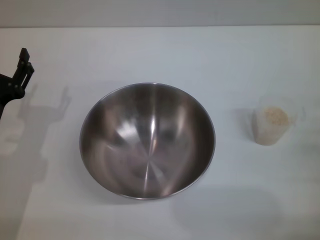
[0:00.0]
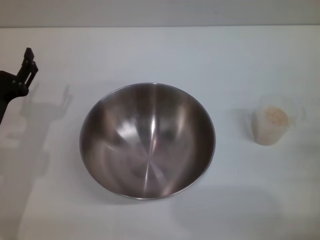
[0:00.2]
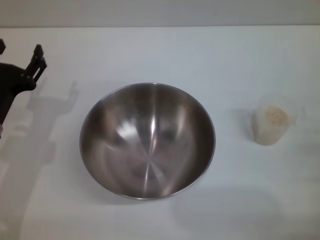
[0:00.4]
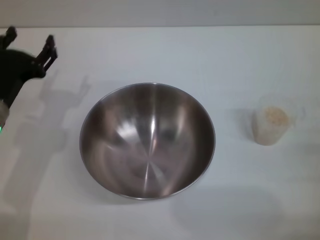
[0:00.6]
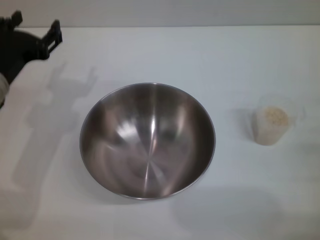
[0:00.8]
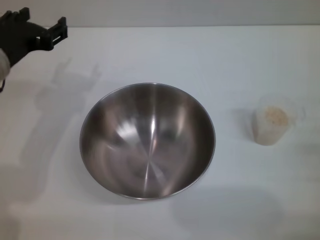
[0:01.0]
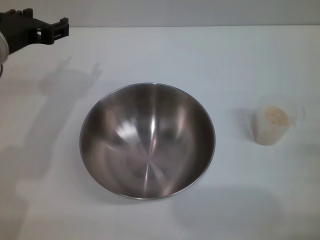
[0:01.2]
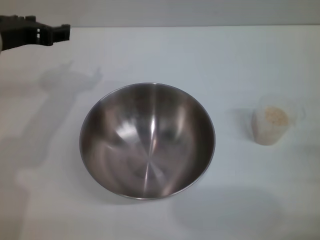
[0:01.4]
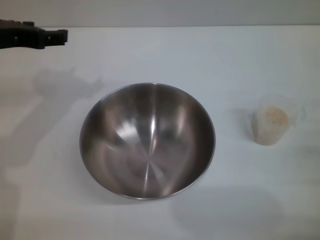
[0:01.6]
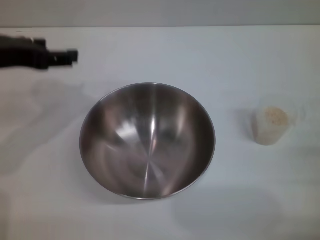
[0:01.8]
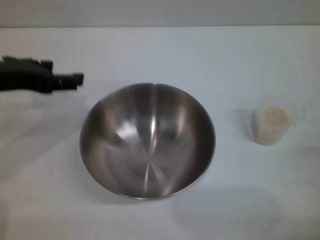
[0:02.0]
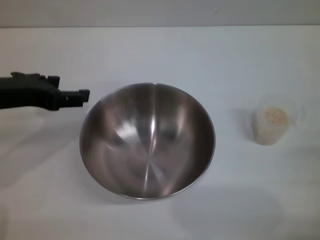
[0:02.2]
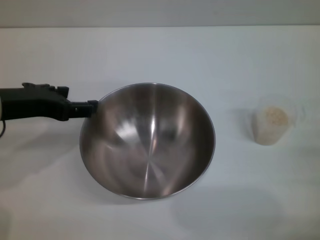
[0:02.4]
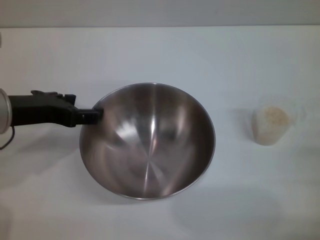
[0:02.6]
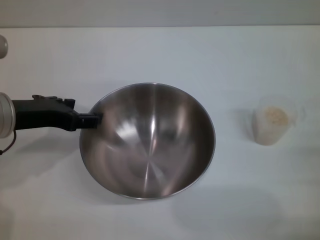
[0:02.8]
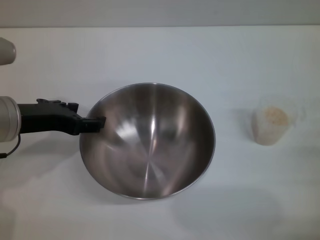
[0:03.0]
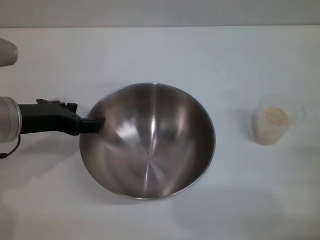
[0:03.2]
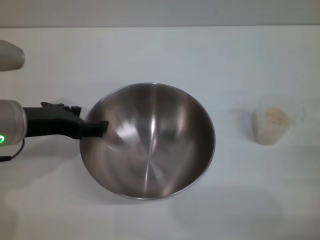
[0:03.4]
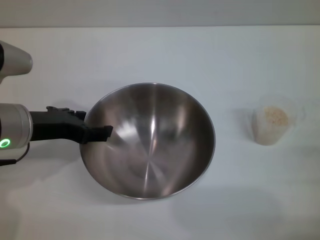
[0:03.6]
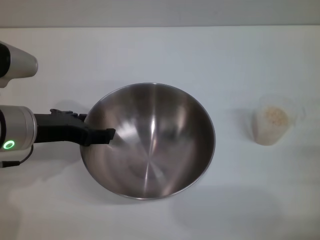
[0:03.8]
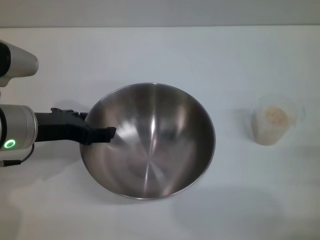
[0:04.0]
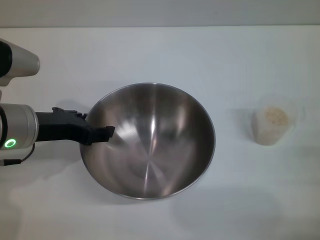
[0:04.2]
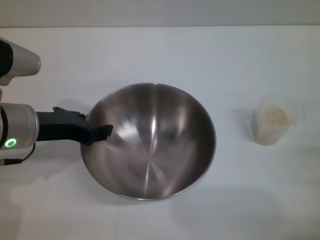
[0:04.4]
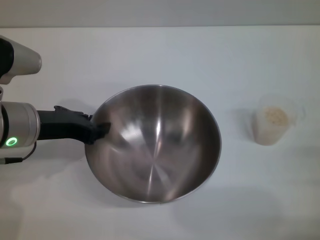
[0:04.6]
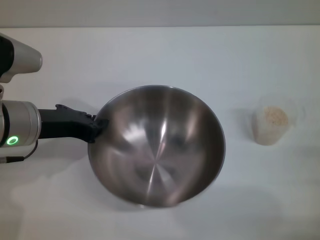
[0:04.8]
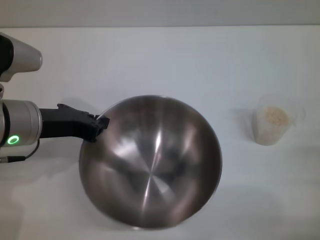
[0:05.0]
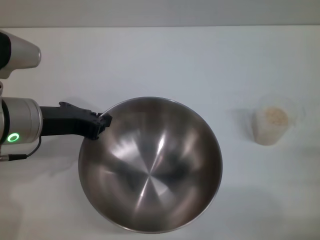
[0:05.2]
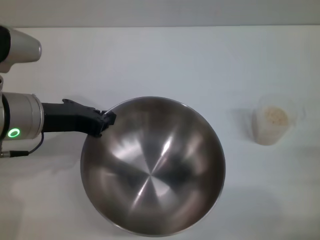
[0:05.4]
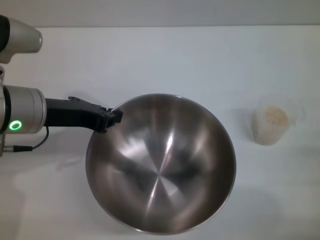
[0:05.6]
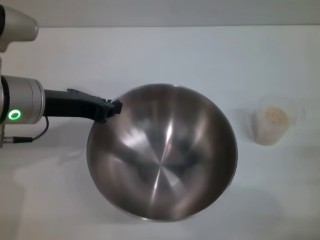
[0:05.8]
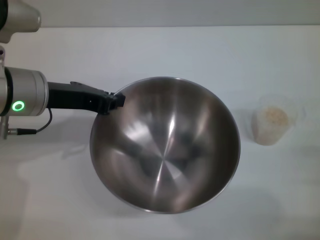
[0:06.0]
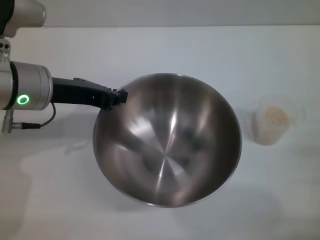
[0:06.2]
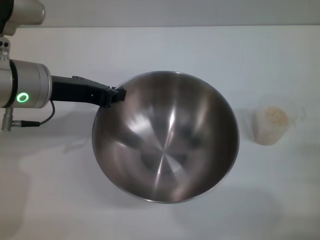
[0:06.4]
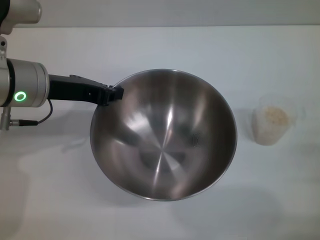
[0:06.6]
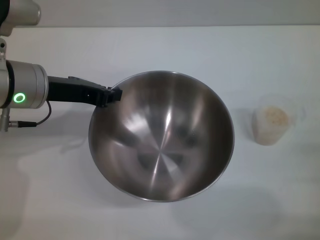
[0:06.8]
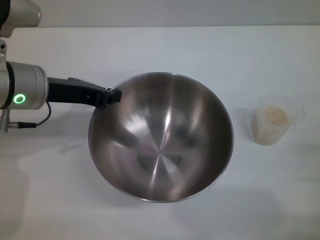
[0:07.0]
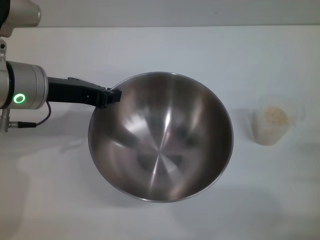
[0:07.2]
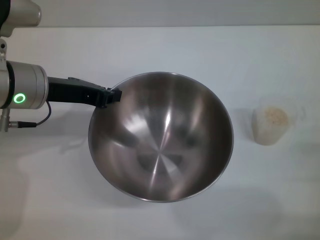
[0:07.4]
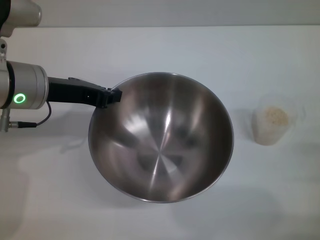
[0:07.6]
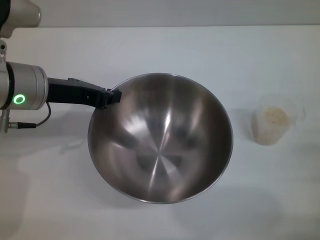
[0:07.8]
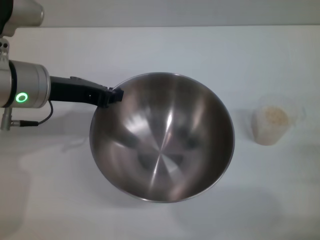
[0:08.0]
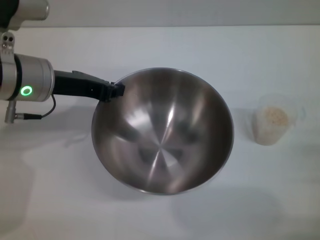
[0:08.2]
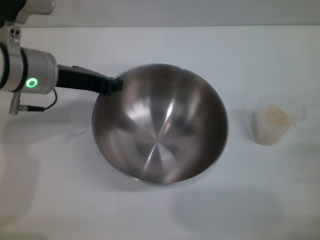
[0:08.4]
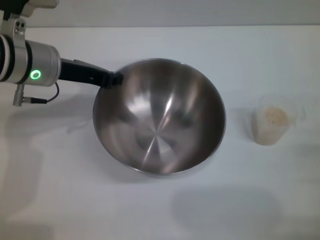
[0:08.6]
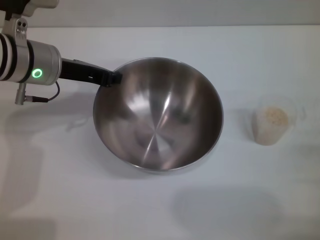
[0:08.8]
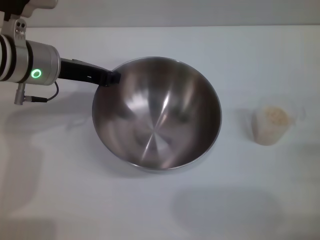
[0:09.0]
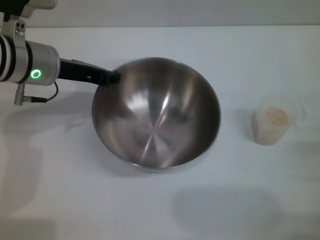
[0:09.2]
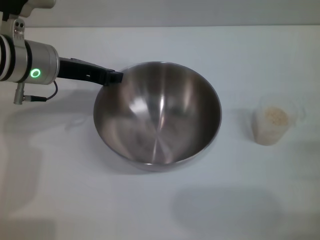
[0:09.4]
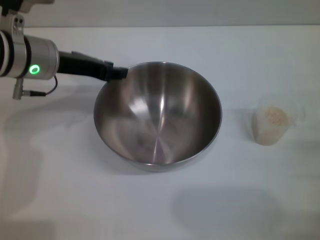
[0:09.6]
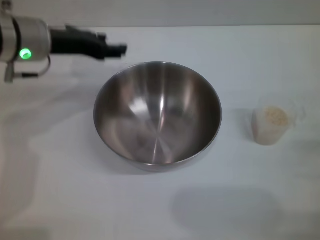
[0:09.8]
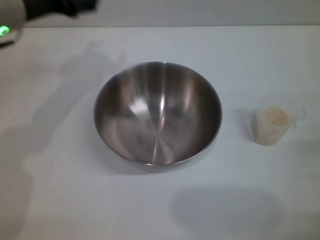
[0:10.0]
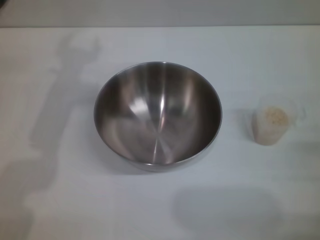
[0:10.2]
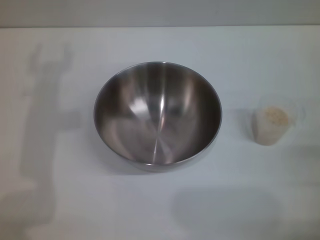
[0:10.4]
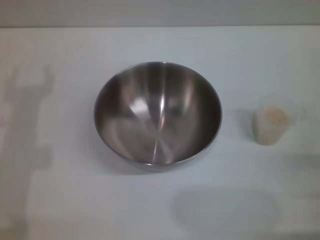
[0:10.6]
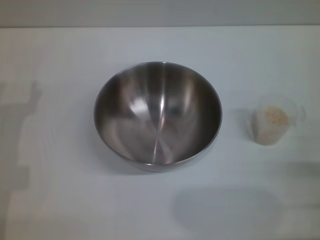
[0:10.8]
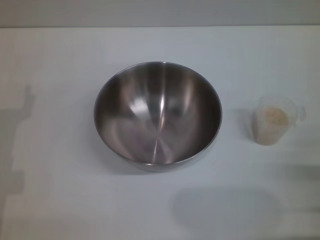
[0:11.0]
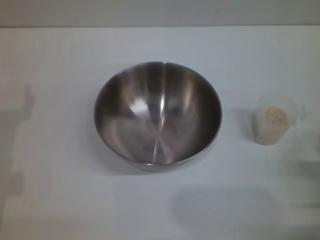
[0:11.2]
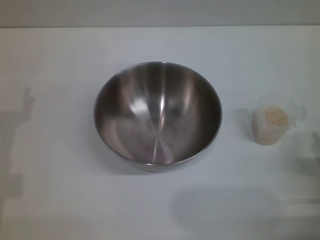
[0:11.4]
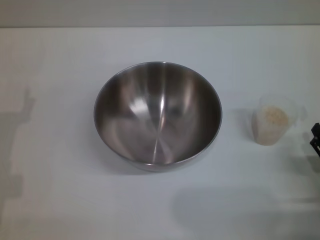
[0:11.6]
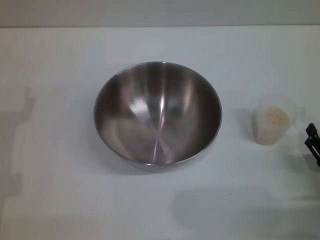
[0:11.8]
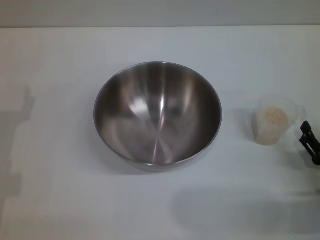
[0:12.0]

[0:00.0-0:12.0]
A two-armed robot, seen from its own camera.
Task of the whole recording: Place the bowl in the middle of the table with one hand and pour the rice from the grain cup into it with the other hand.
Step, 0:00.0 to 0:05.8: Pick up the bowl with the left gripper.
Step, 0:06.0 to 0:09.6: Place the bowl in the center of view with the left gripper.
0:00.0 to 0:01.6: The left gripper shifts some 20 cm upward and forward.
0:01.6 to 0:03.0: The left gripper shifts about 5 cm downward.
0:03.0 to 0:04.4: The grippers stay close to where they were, moving slightly.
0:04.4 to 0:06.0: The left gripper closes up.
0:06.0 to 0:07.6: Both grippers stay about where they are.
0:07.6 to 0:09.0: The left gripper travels forward by about 5 cm.
0:09.0 to 0:10.4: The left gripper moves backward, some 5 cm, and opens up.
0:10.4 to 0:12.0: The left gripper travels downward, backward and to the left by approximately 15 cm. Meanwhile the right gripper ends up roughly 5 cm from where it was.

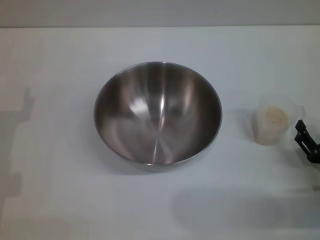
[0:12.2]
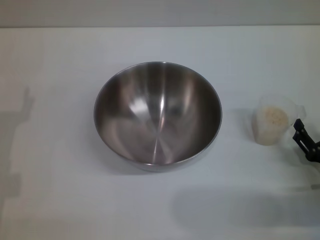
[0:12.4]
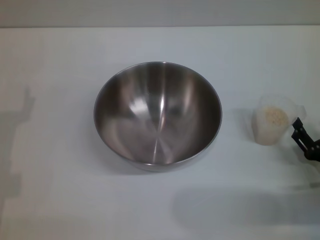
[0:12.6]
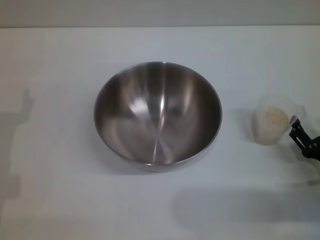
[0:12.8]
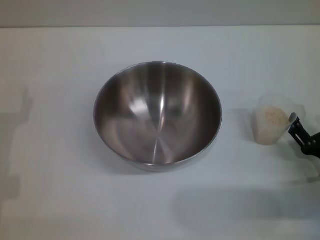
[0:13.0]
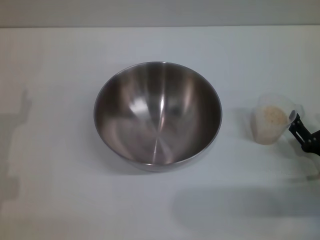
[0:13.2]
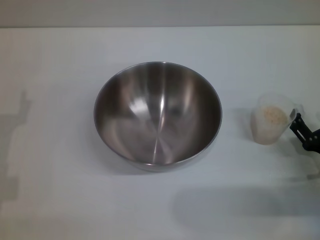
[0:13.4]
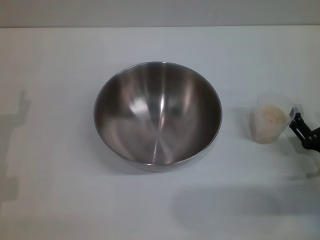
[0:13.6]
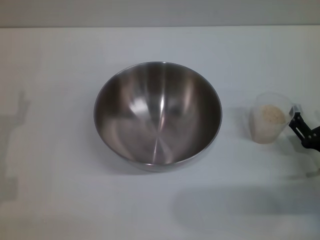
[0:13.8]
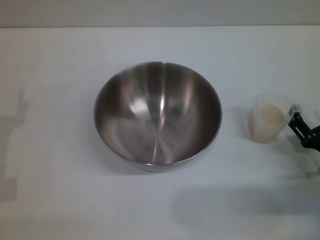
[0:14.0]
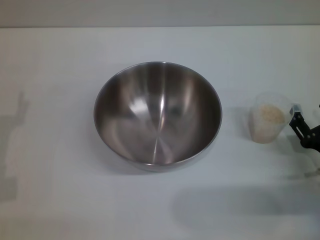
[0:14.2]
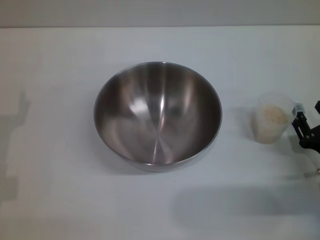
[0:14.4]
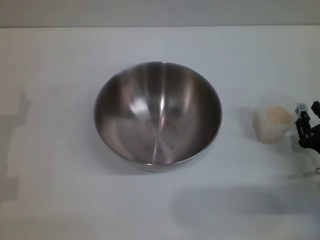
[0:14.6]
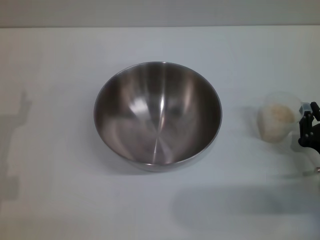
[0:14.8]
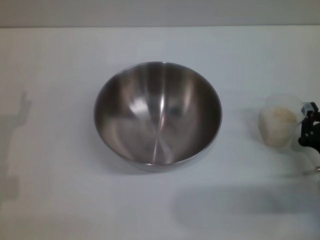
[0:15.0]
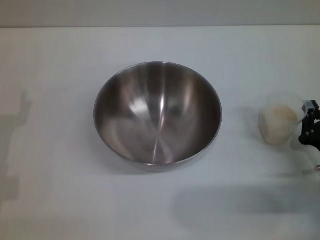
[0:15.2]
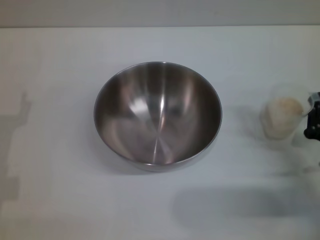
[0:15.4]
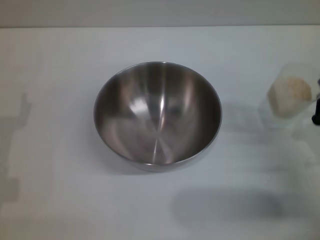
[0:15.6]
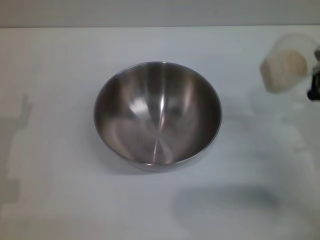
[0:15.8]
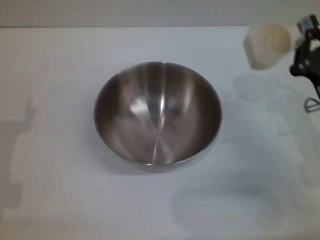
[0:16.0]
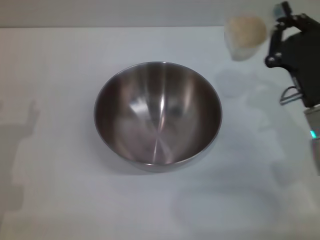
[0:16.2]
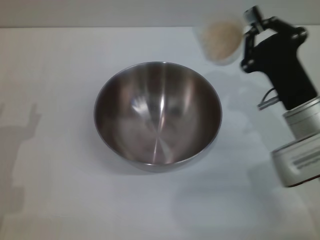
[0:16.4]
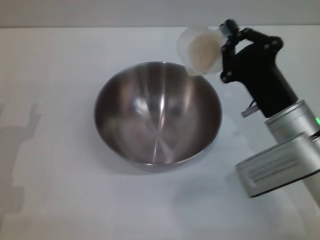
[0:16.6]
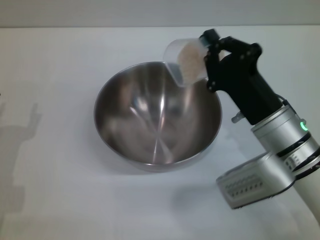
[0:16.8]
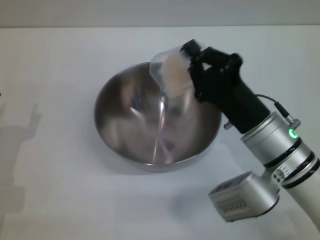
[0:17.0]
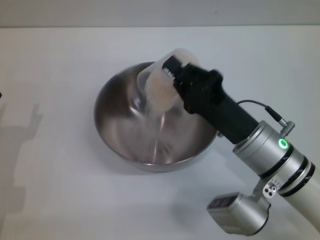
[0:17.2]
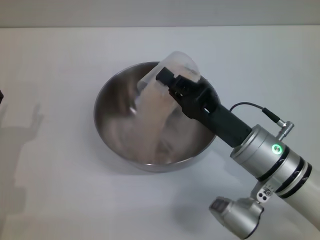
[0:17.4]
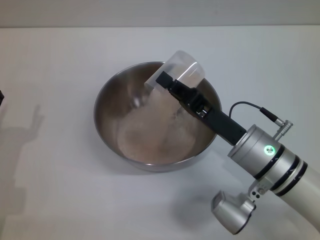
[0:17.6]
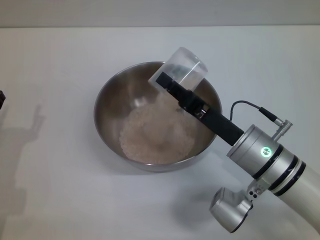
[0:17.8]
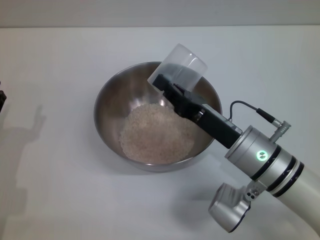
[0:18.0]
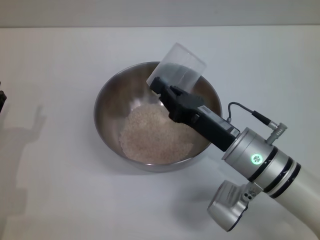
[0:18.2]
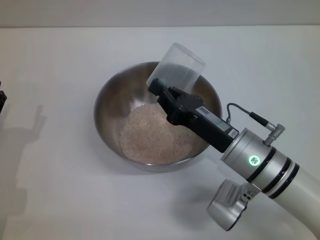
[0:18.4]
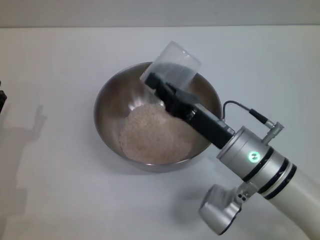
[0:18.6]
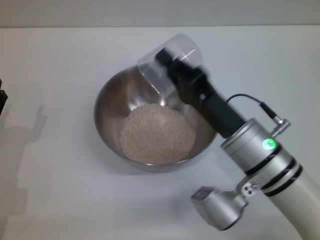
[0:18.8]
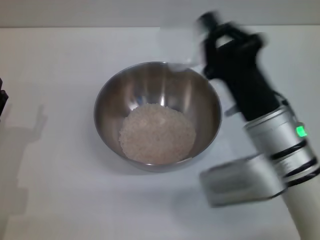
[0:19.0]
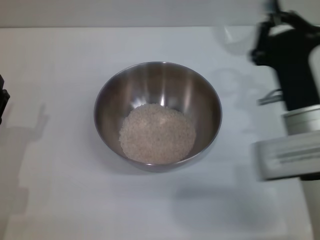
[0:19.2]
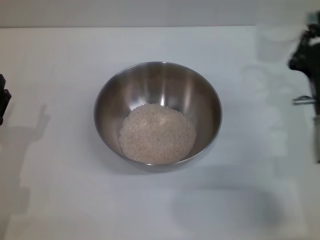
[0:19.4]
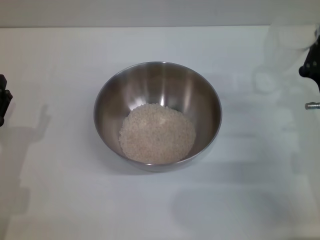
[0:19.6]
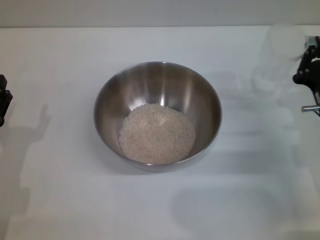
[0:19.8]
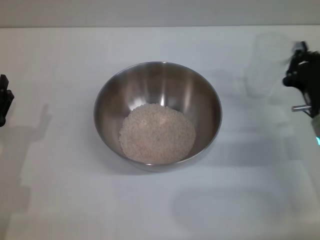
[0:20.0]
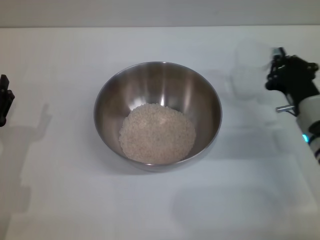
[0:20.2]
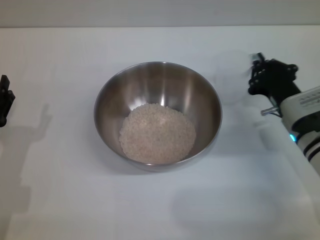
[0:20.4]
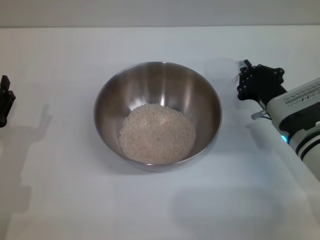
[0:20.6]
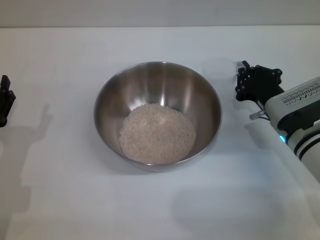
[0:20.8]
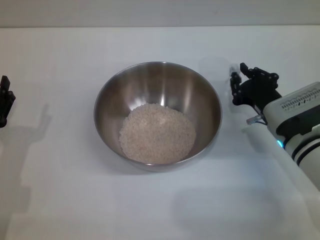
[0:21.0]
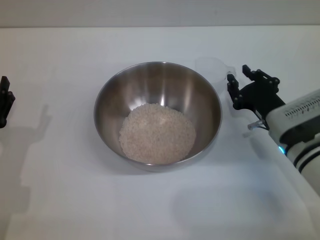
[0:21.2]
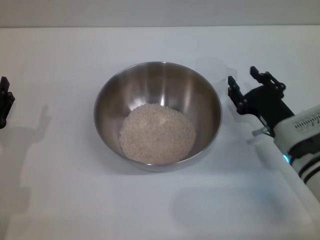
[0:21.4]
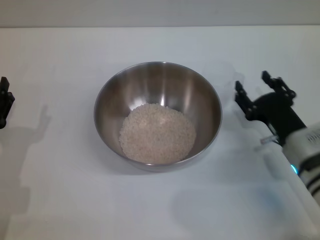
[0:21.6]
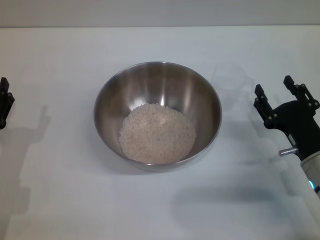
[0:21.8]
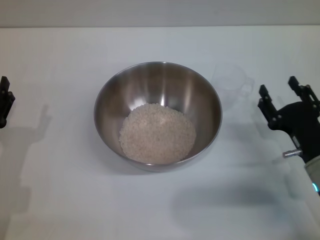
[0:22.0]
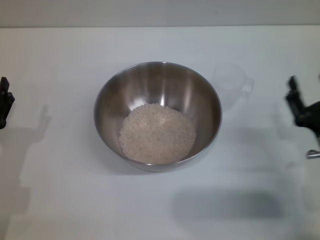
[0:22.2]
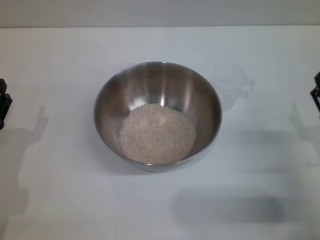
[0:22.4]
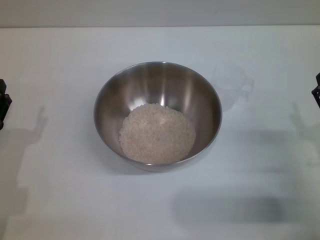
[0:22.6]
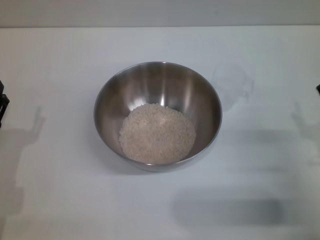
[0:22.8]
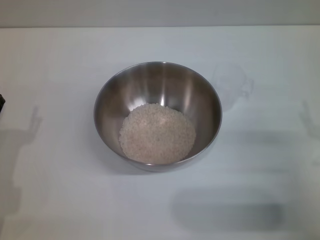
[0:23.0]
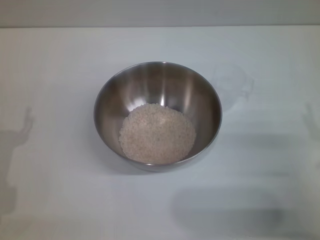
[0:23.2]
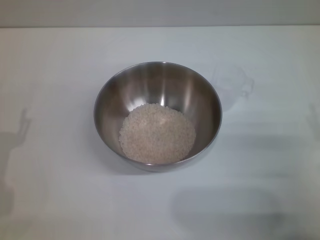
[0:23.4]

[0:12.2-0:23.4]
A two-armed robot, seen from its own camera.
Task of the whole recording: Place the bowl in the middle of the table with one hand and pour the rice from the grain cup into it with the other hand.
Step, 0:12.2 to 0:15.4: Pick up the cup with rice in it with the right gripper.
Step, 0:15.6 to 0:18.4: Pour the rice from the cup into the bowl with the right gripper.
Step, 0:18.6 to 0:22.0: Place the cup on the table with the right gripper.
0:12.2 to 0:13.8: The grippers make only small movements.
0:13.8 to 0:15.4: The right gripper closes.
0:15.4 to 0:17.0: The right gripper moves to the left, upward and forward, some 15 cm.
0:18.6 to 0:20.2: The right gripper travels to the right by some 10 cm.
0:20.2 to 0:21.8: The right gripper goes about 5 cm backward, and opens.
0:21.8 to 0:23.4: The right gripper heads backward, covering about 5 cm.
